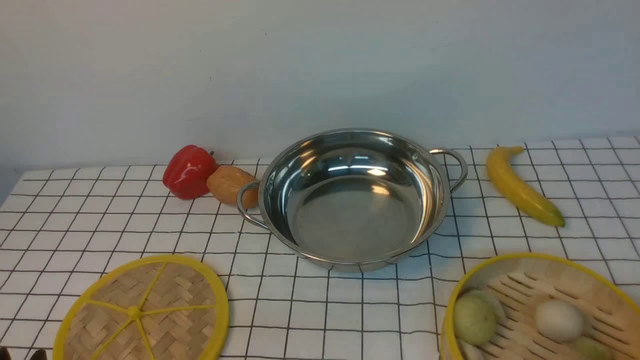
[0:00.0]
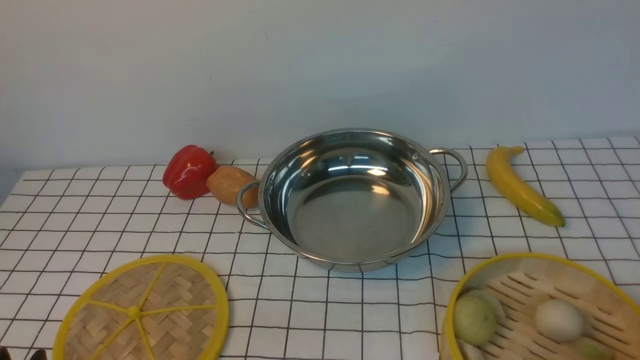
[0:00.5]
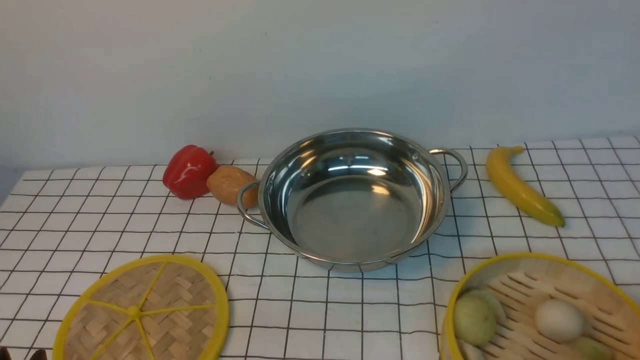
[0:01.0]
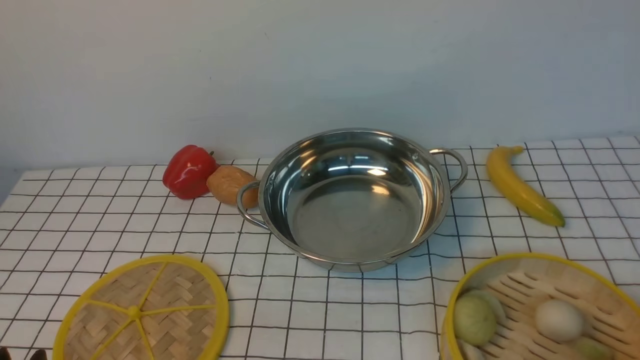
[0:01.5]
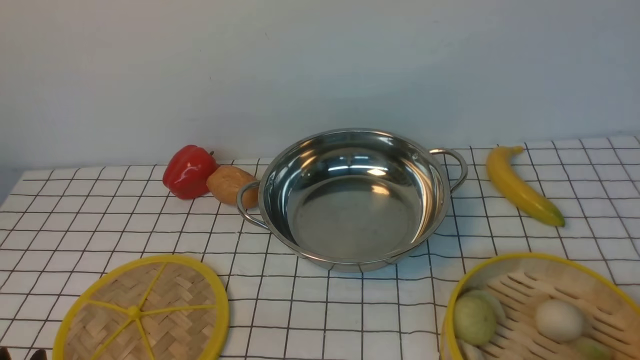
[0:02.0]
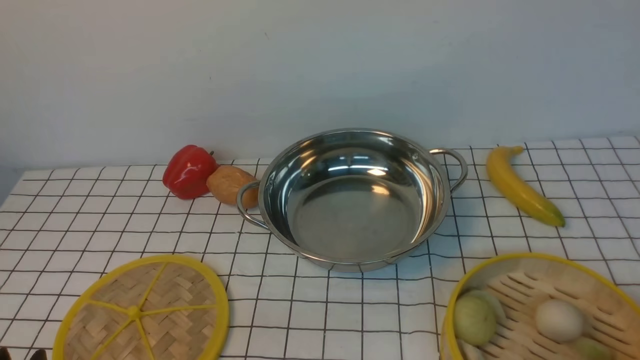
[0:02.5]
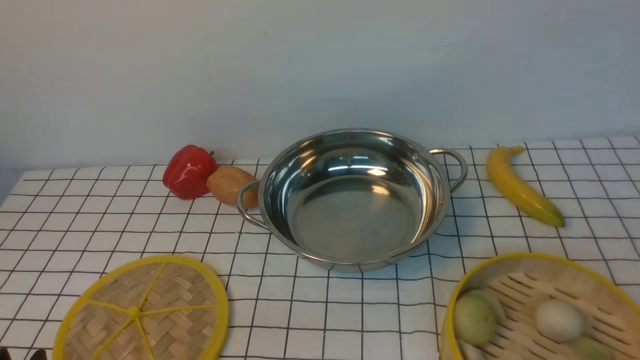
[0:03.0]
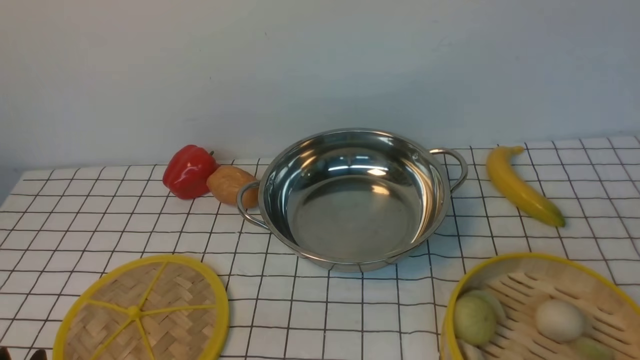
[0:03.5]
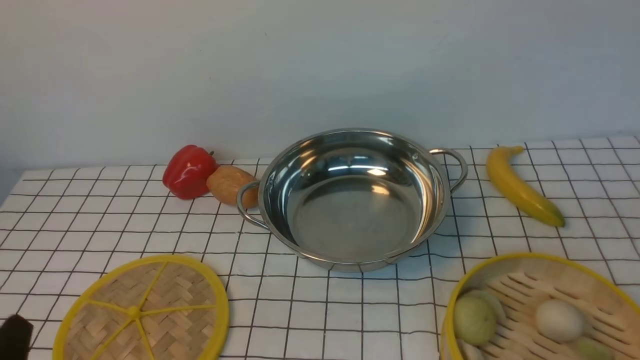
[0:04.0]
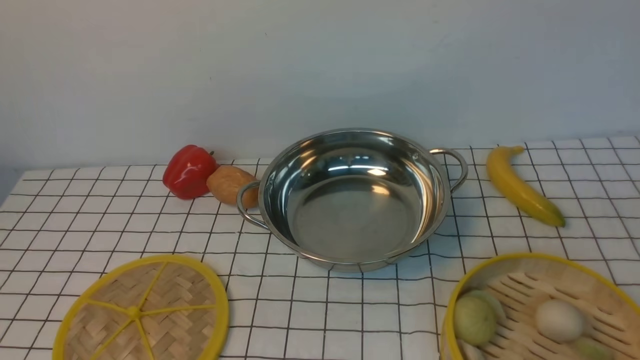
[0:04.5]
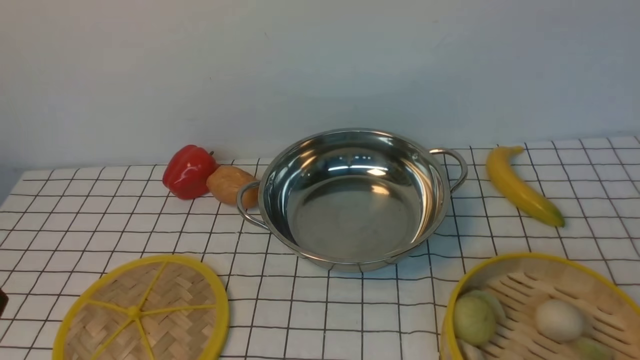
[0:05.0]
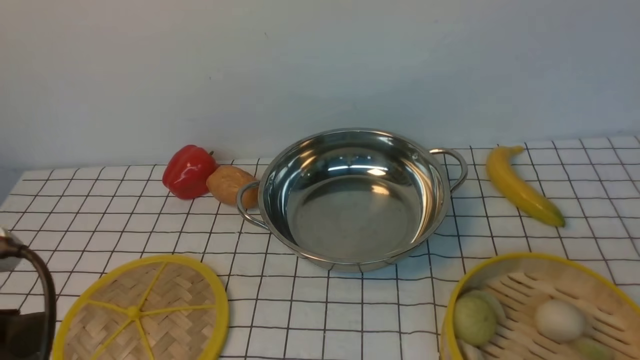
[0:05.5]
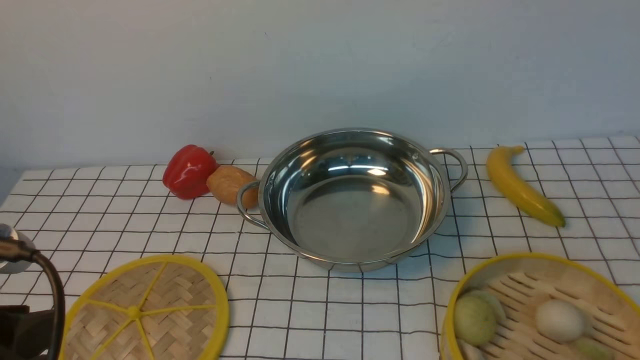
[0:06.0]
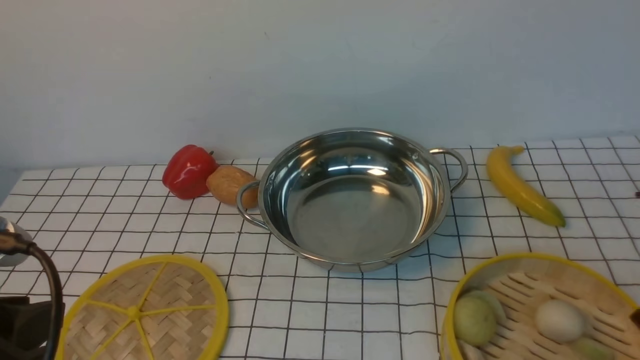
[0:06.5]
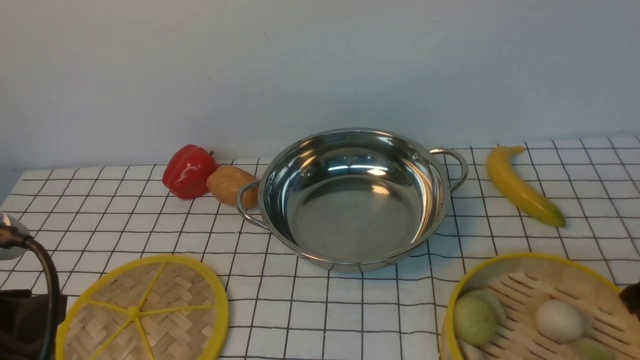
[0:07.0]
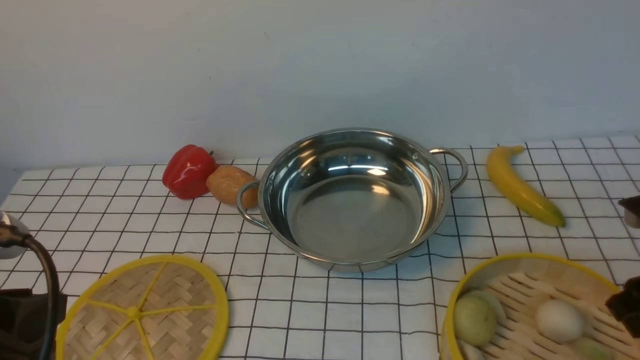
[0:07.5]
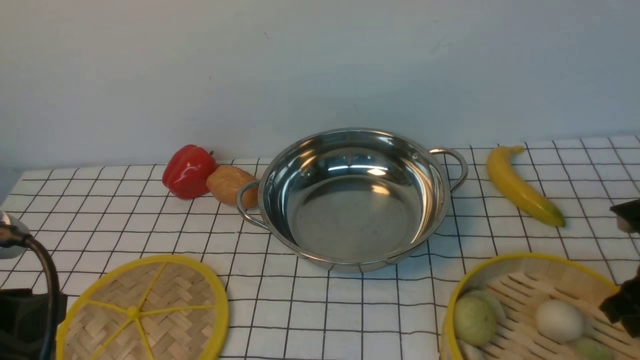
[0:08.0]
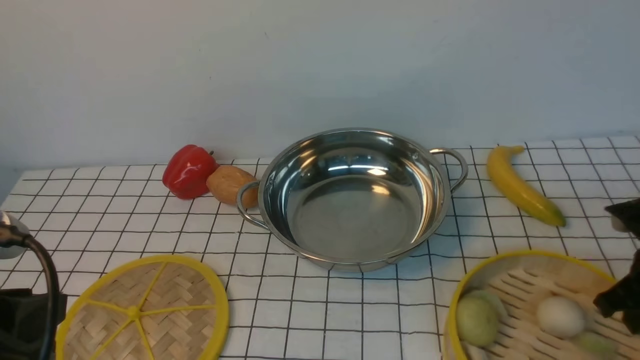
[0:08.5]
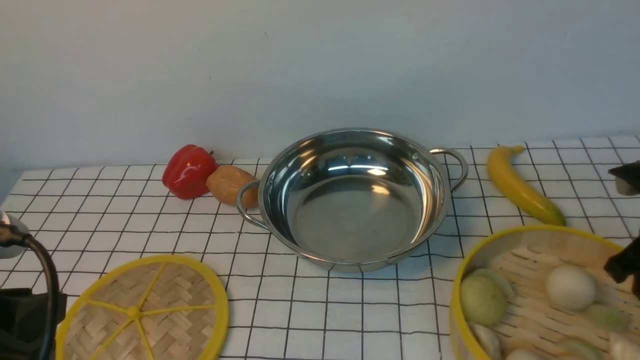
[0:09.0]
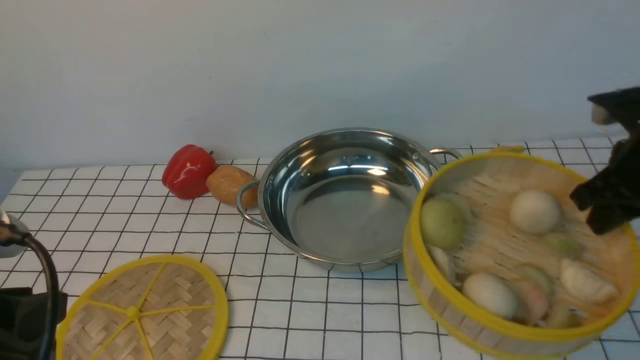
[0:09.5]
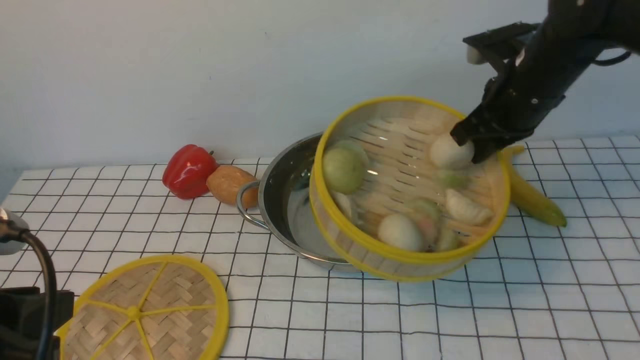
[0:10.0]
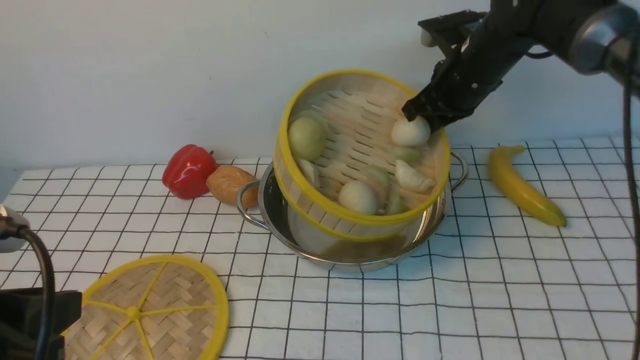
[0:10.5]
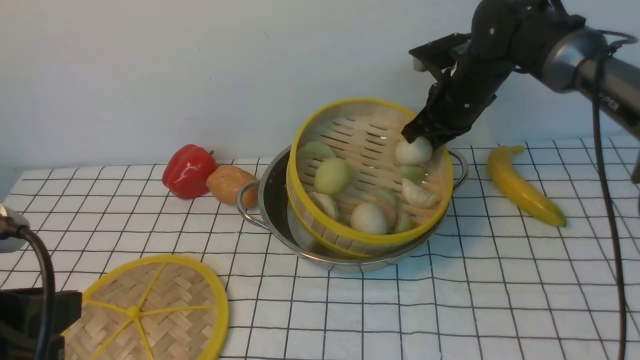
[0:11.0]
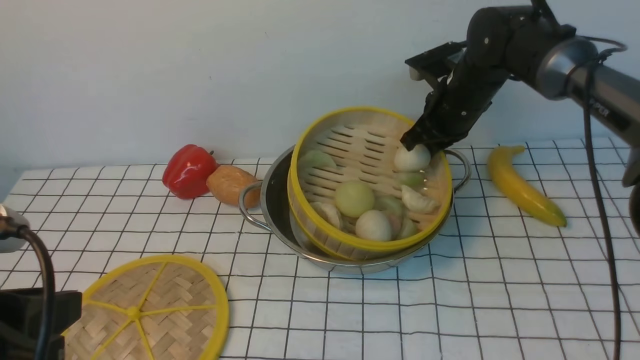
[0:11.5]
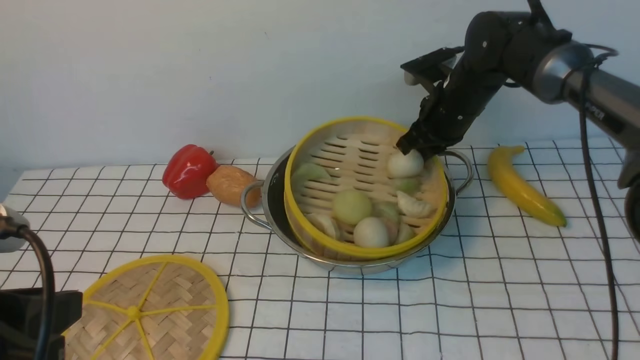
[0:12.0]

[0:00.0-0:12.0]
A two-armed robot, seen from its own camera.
Task of the whole recording: place the steamer in the pot on the white tablecloth, and put the lid on the steamer.
Step, 0:00.0 to 0:08.5: use the right arm to lift the steamer closest to it.
0:00.0 to 0:02.0: Both grippers stay about where they are.
0:04.0 to 0:06.0: The left gripper travels upward by some 10 cm.
0:06.0 to 0:08.0: The right gripper heads downward and forward, covering roughly 15 cm.
0:08.0 to 0:10.0: The right gripper shifts roughly 25 cm forward, to the left and upward, and closes its fingers.
0:10.0 to 0:12.0: The right gripper heads forward and downward, covering some 10 cm.

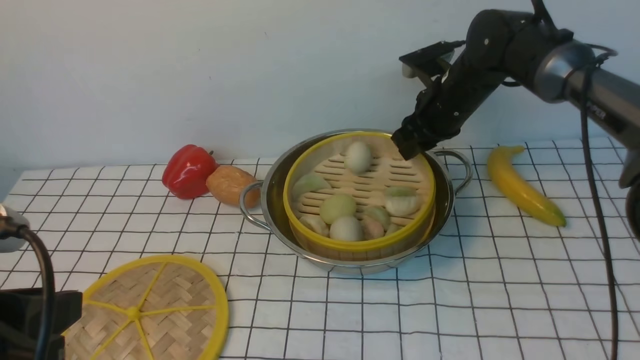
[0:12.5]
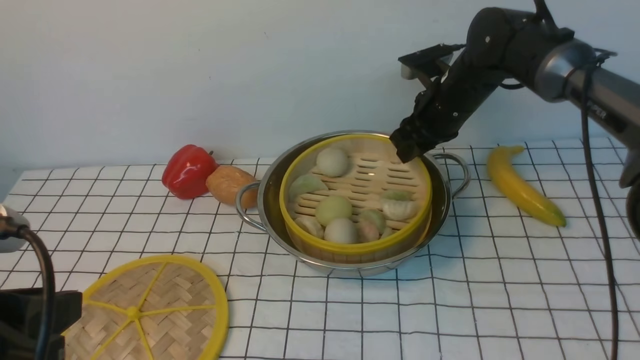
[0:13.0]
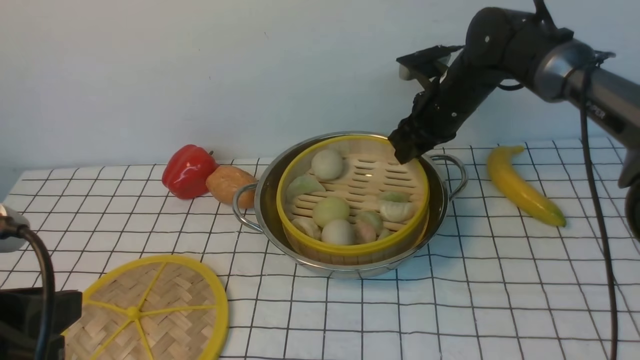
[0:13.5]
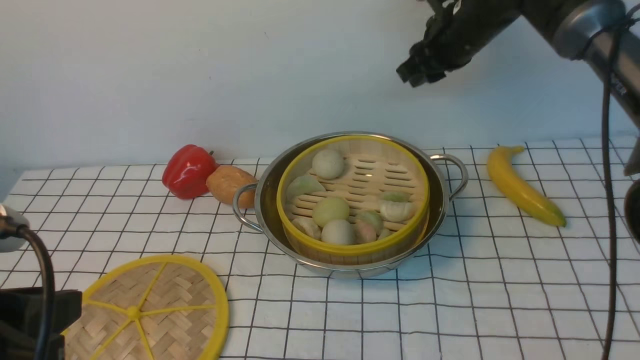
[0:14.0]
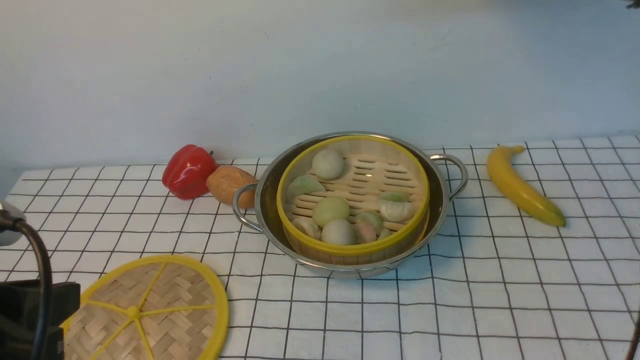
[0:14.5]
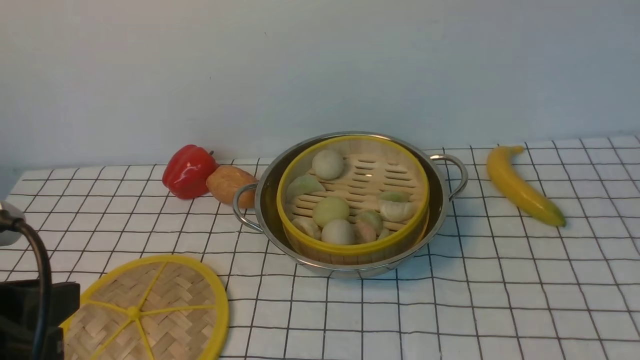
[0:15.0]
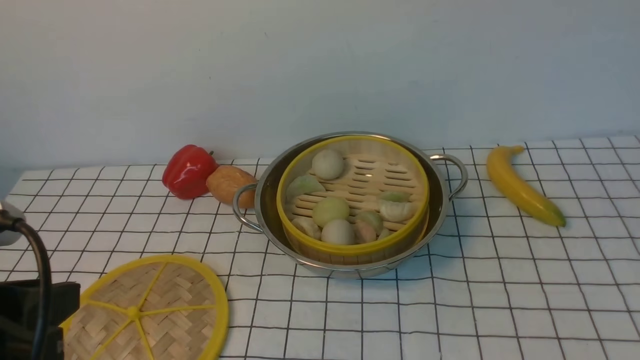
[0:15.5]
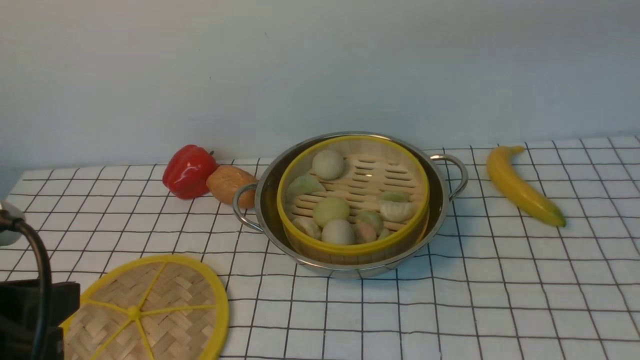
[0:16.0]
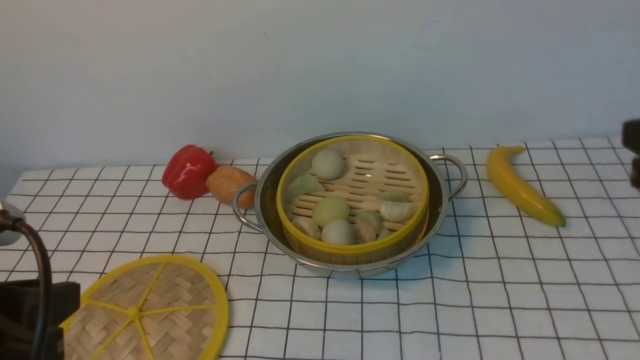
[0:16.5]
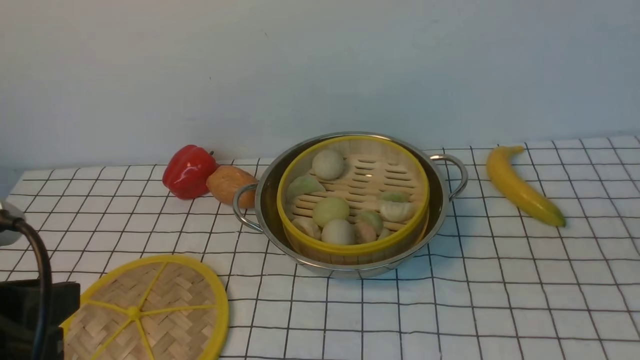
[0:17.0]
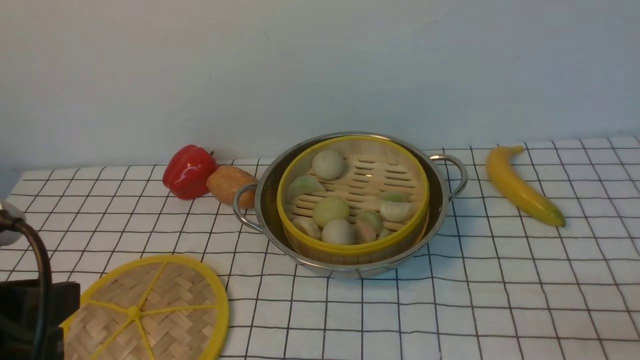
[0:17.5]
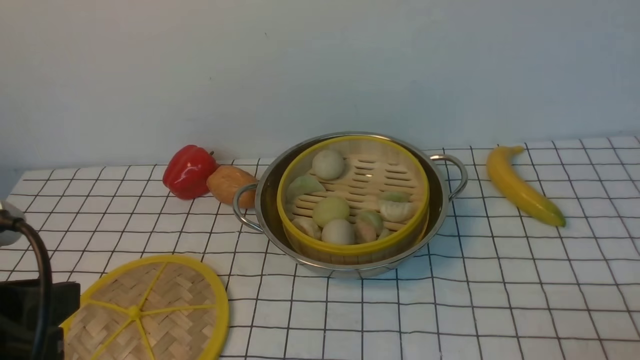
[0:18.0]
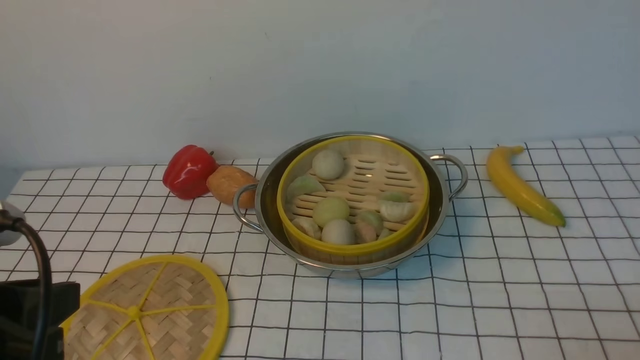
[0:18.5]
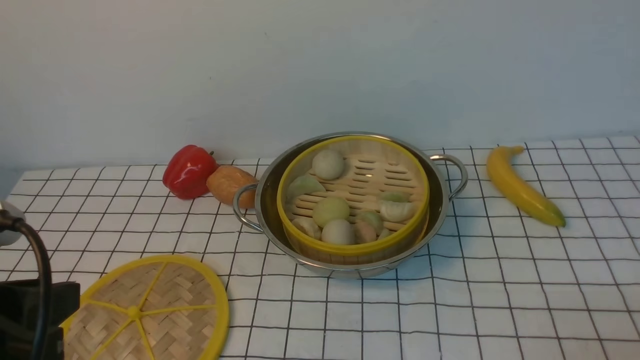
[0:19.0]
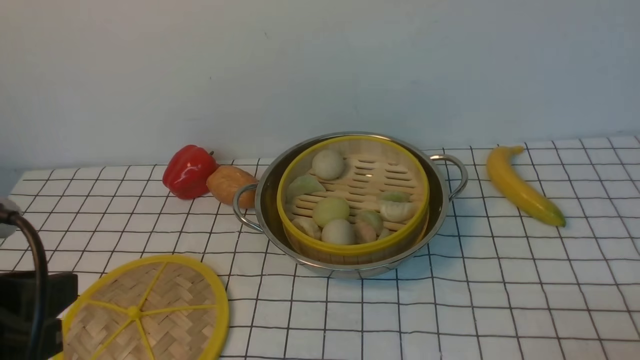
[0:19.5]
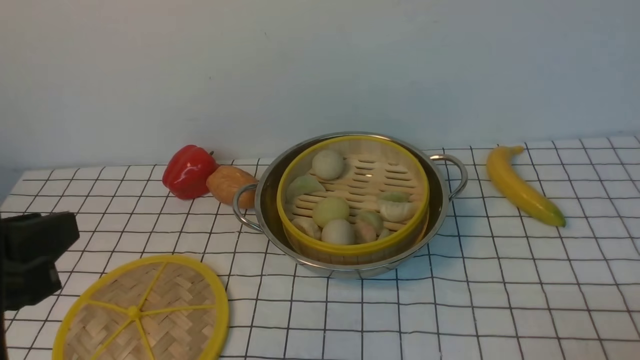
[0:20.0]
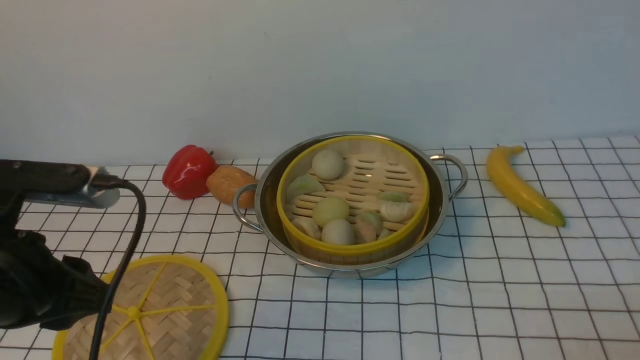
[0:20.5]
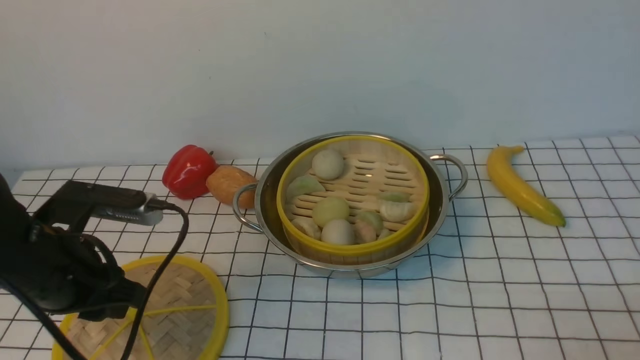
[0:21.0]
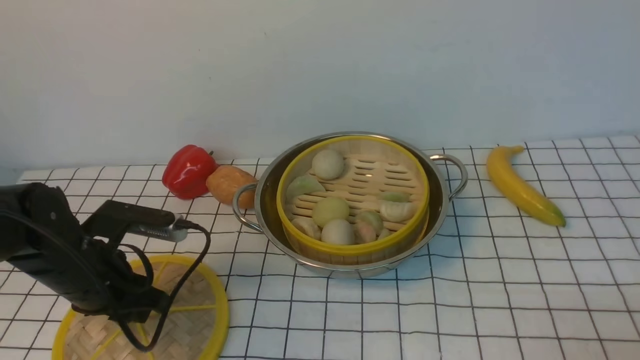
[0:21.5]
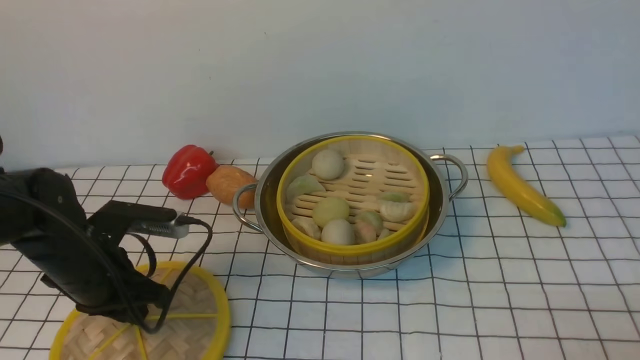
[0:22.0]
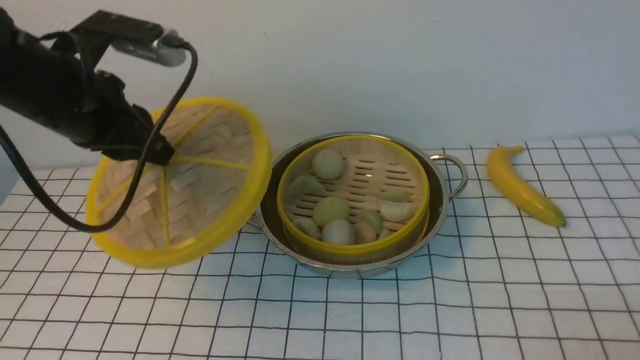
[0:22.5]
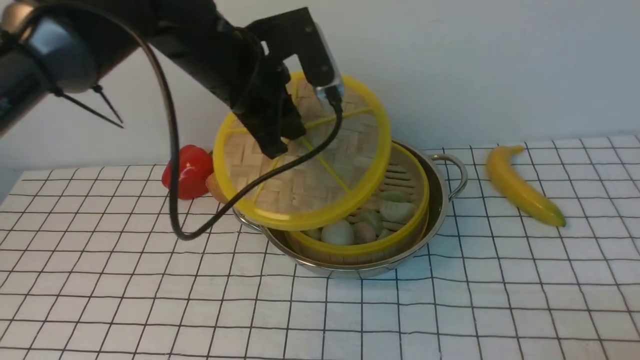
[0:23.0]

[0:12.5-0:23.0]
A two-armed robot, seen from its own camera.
Task of the whole recording: place the steamer in the pot on the white tablecloth, and put the lid on the steamer.
Step, 0:14.0 to 0:22.0: use the left arm to lift the lid of the steamer.
0:12.5 to 0:14.5: The right gripper is displaced upward by about 20 cm, and closes its fingers.
0:14.5 to 0:16.5: The right gripper is displaced backward by roughly 30 cm, and opens its fingers.
0:16.5 to 0:19.0: The right gripper travels downward and backward by roughly 20 cm, and opens its fingers.
0:19.0 to 0:21.0: The left gripper shifts about 15 cm forward and downward.
0:21.0 to 0:23.0: The left gripper is displaced to the right, forward and upward by about 25 cm, and closes.
